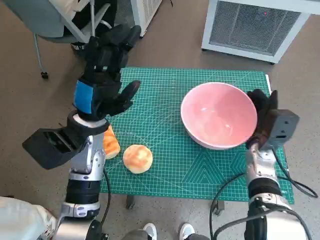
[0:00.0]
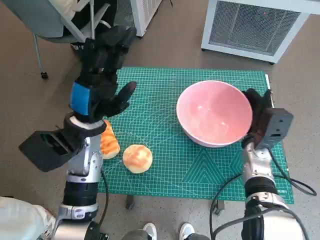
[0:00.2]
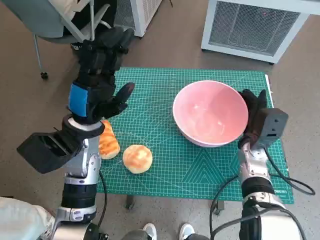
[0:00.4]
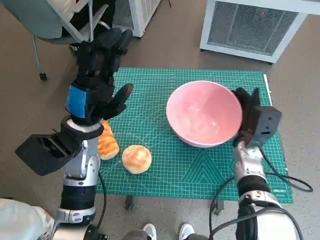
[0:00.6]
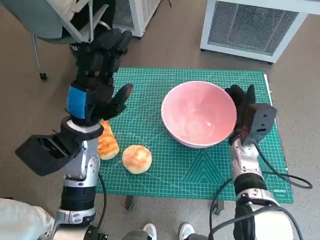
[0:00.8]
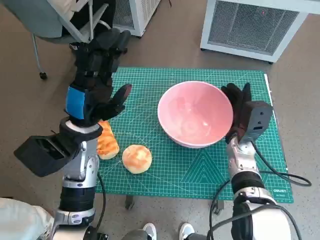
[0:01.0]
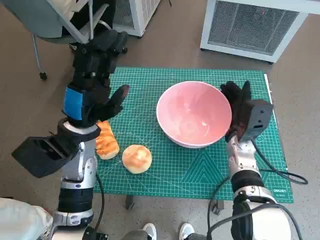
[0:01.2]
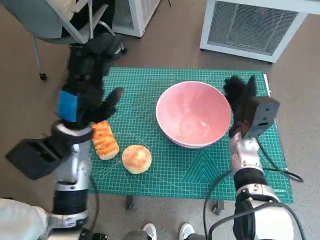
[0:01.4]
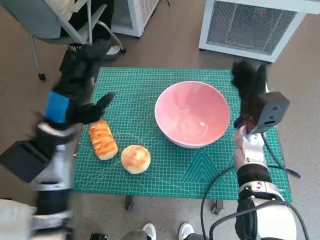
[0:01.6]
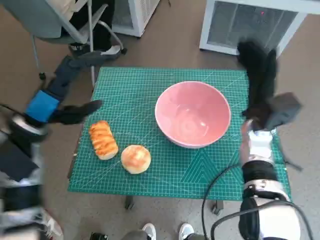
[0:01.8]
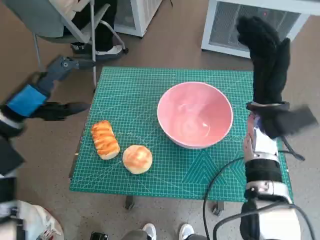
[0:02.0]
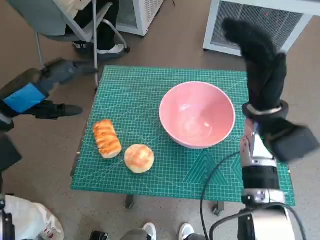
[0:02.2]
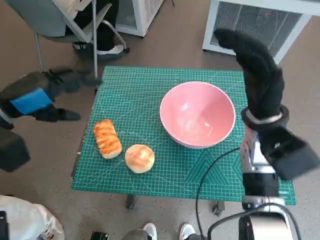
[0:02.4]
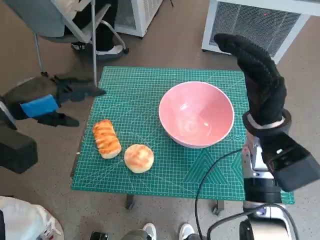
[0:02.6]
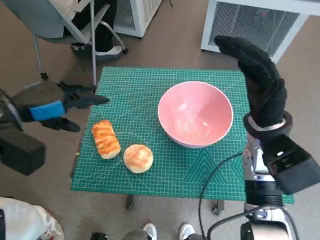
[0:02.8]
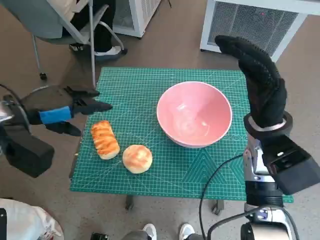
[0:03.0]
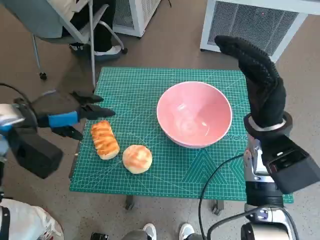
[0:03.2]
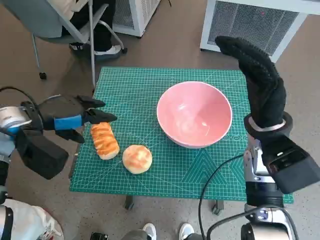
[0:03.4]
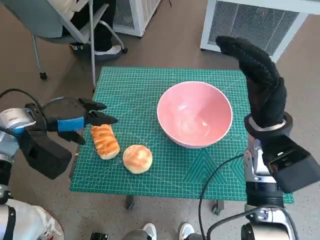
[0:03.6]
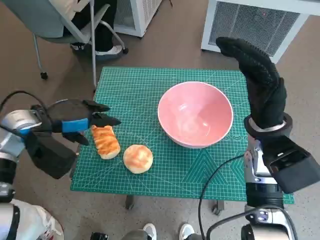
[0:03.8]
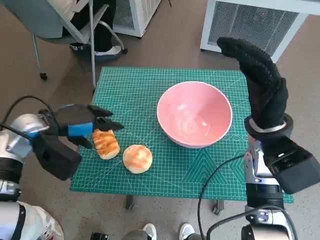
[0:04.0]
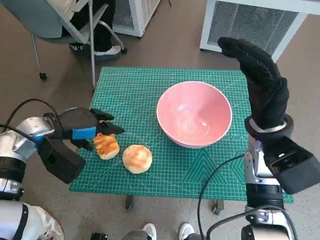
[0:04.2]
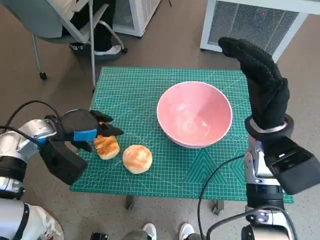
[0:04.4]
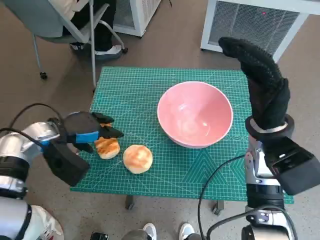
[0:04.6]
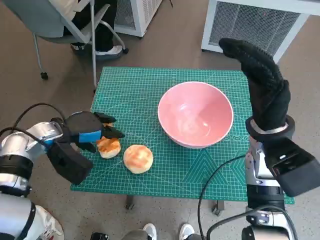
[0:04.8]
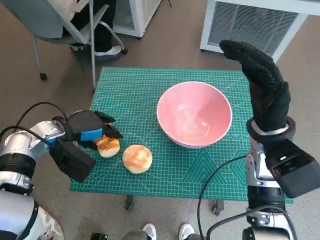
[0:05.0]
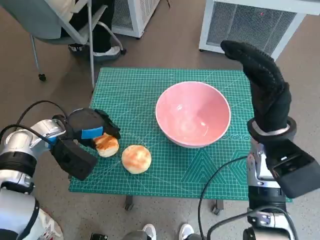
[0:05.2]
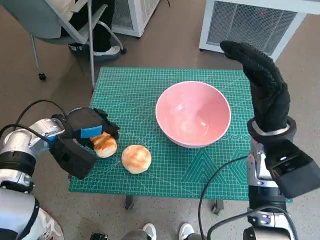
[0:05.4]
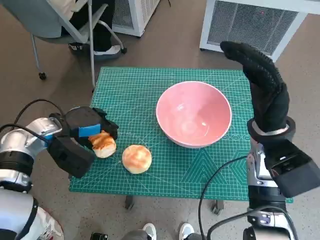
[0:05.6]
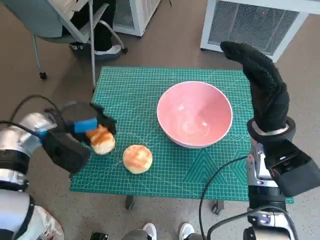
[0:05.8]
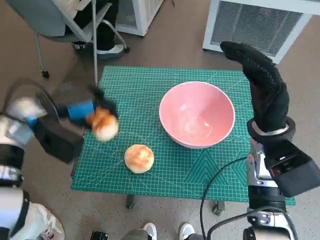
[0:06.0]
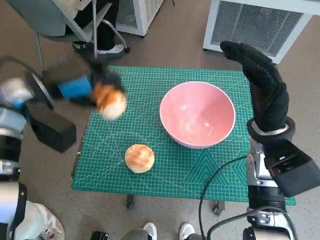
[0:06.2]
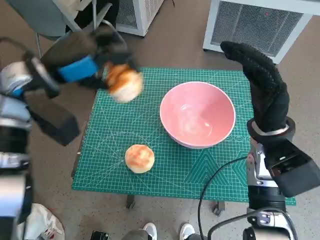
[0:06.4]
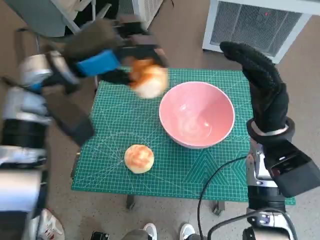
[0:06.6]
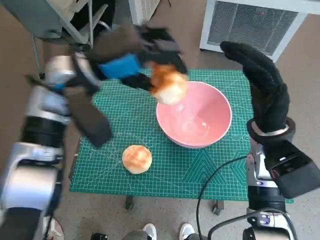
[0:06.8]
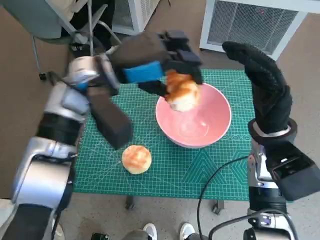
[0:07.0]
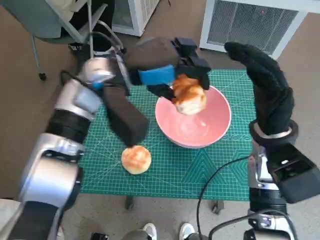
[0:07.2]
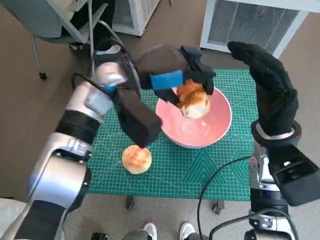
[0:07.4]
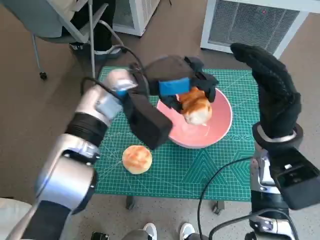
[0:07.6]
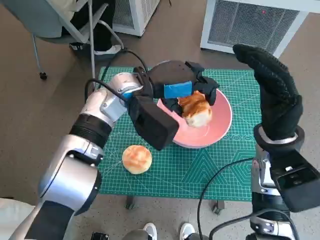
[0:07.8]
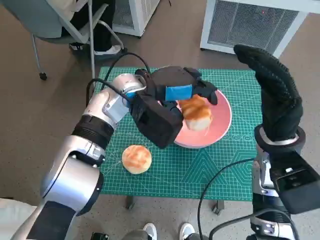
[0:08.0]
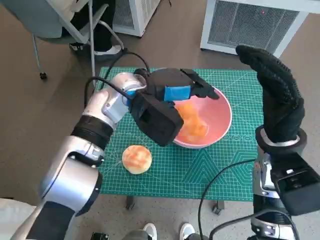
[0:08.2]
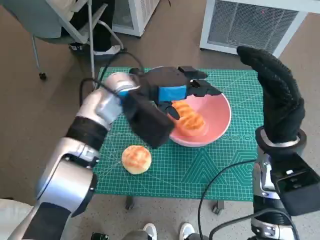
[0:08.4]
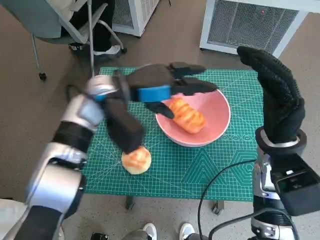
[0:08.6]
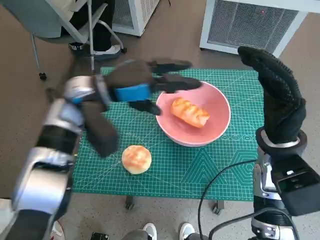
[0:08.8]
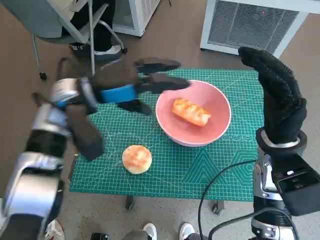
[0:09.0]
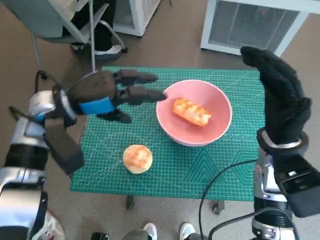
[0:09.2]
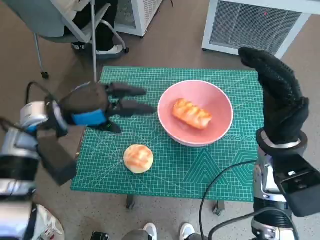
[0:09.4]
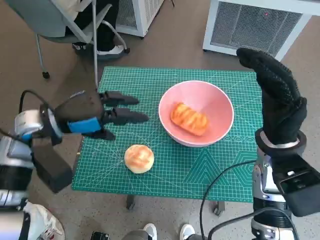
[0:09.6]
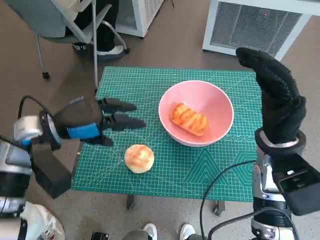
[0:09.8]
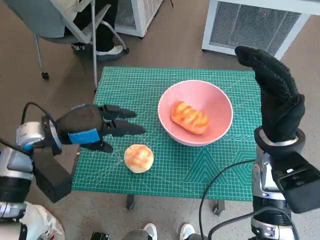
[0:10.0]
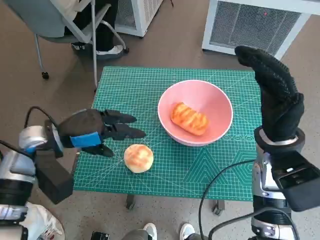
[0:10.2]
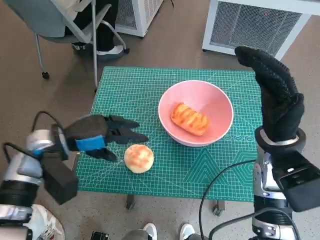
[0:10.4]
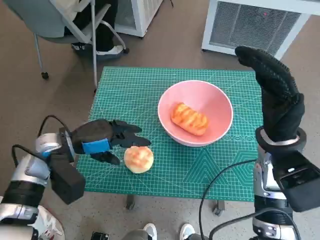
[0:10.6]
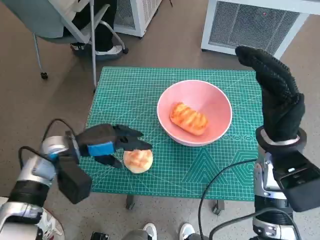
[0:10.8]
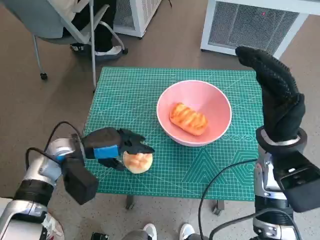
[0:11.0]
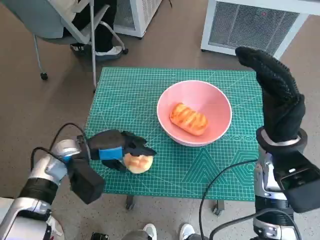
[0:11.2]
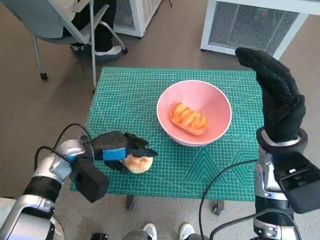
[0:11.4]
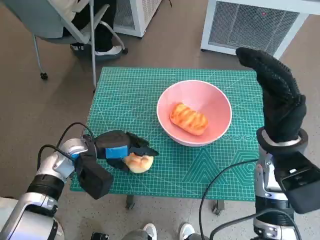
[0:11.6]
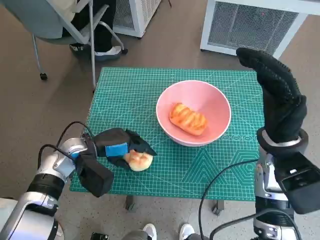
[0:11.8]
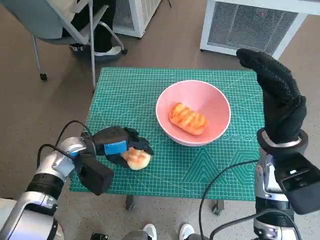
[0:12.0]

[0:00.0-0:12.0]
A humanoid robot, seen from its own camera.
Task of the whole recording: Push the bowl to the center of the table and put the bread into the bowl.
Step, 0:02.0 to 0:05.4: Grasp the long bread with left hand.
Step, 0:05.6 to 0:08.6: Place the long bread in pink bowl with left hand.
Step, 0:08.8 to 0:11.6: Grasp the round bread with left hand.
0:00.0 to 0:01.6: The right hand changes place by roughly 5 cm; the left hand ends up about 5 cm from where it was.
0:01.6 to 0:03.0: The right hand travels upward by about 10 cm. The left hand shifts roughly 10 cm to the left and upward.
0:03.0 to 0:04.4: The left hand travels downward by roughly 10 cm.
0:06.0 to 0:07.6: The left hand shifts about 20 cm to the right.
0:07.6 to 0:09.0: The left hand moves to the left, approximately 10 cm.
0:09.0 to 0:10.4: The left hand is displaced to the left, downward and backward by about 10 cm.
0:10.4 to 0:12.0: The left hand travels downward by about 5 cm.

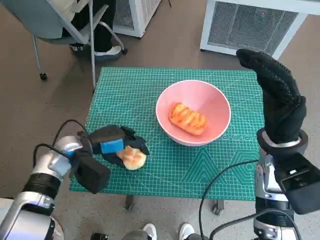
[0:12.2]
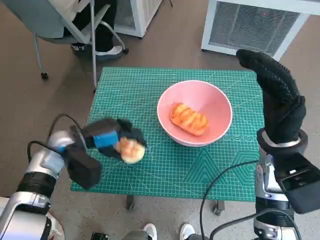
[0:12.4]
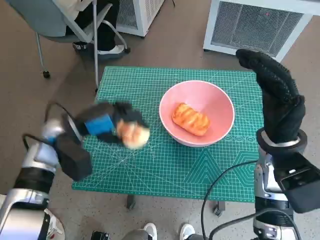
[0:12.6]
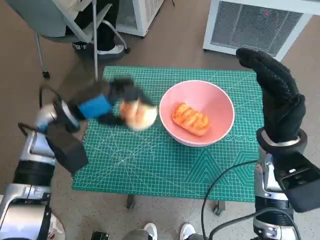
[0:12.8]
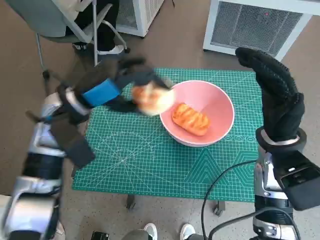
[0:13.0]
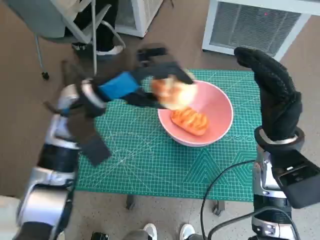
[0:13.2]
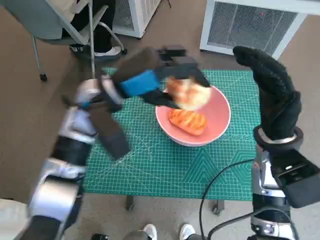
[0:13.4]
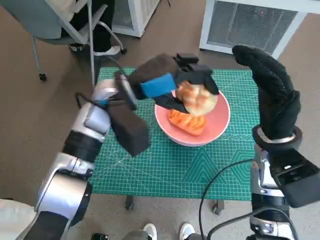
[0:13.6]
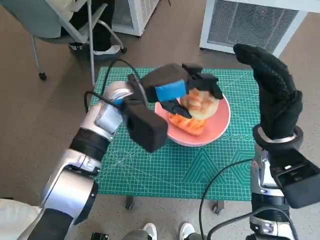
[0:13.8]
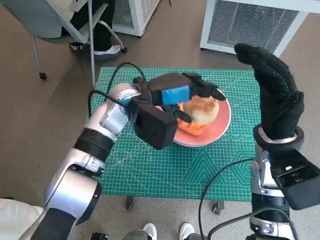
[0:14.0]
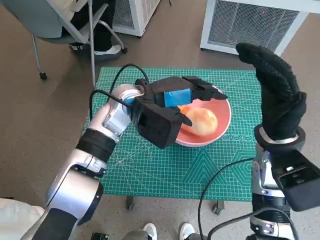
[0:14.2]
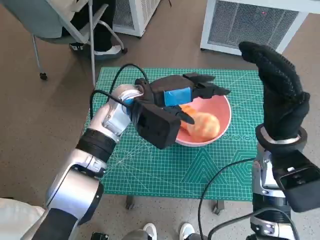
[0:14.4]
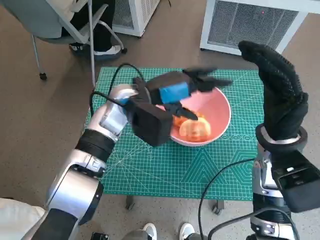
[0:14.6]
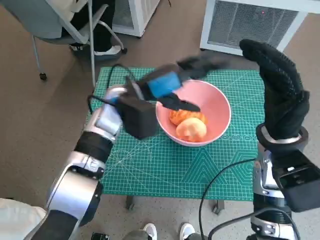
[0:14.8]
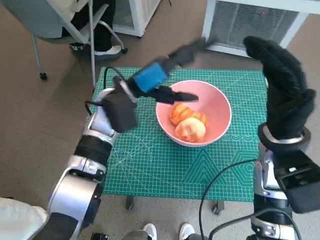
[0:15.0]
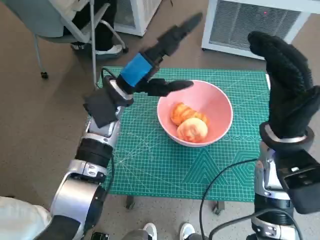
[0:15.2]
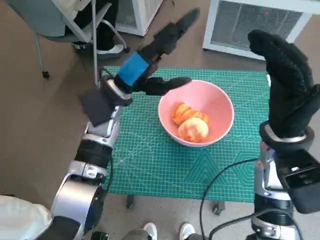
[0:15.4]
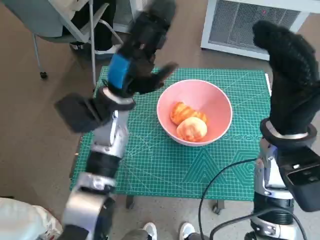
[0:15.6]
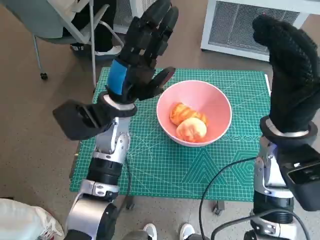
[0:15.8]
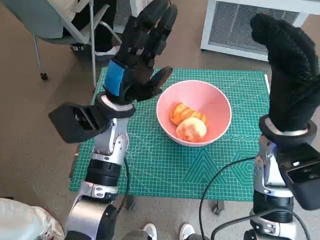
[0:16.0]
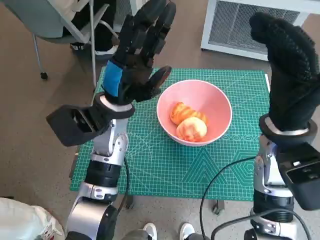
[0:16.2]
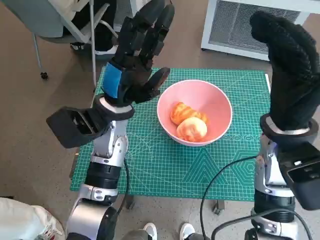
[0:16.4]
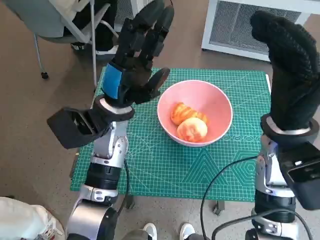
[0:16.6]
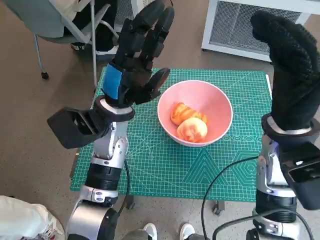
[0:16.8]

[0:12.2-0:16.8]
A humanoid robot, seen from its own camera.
Task of the whole recording: Push the bowl to the center of the table and put the bread into the bowl.
Step, 0:12.2 to 0:14.8: Place the round bread in pink bowl with left hand.
0:12.2 to 0:13.8: The left hand is displaced to the right, upward and forward by approximately 20 cm.

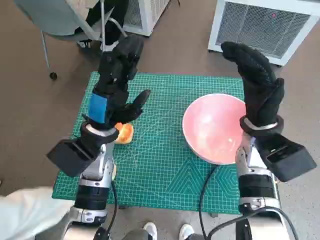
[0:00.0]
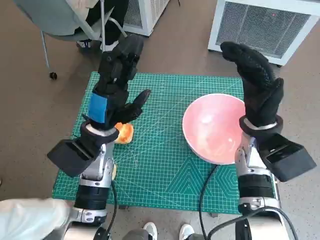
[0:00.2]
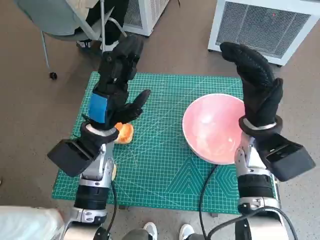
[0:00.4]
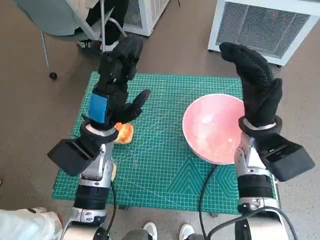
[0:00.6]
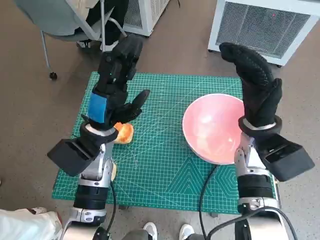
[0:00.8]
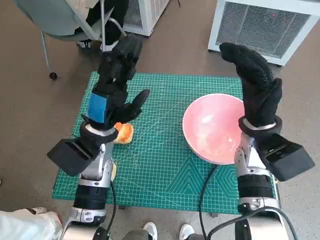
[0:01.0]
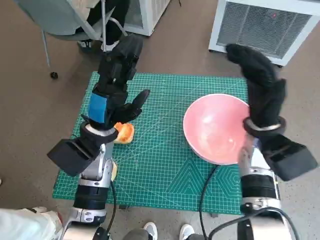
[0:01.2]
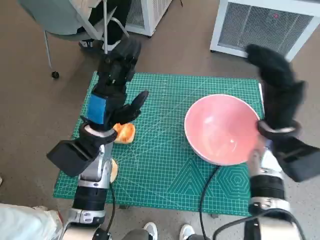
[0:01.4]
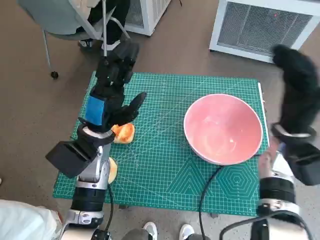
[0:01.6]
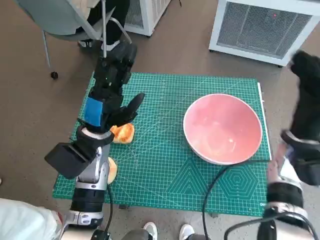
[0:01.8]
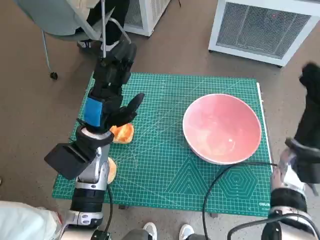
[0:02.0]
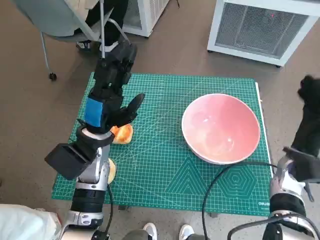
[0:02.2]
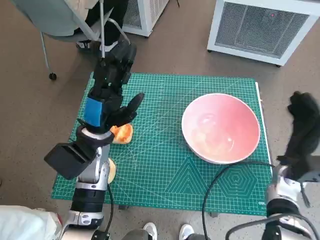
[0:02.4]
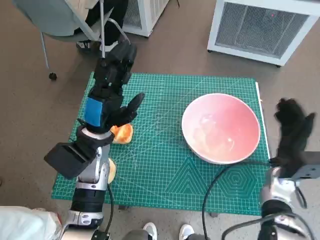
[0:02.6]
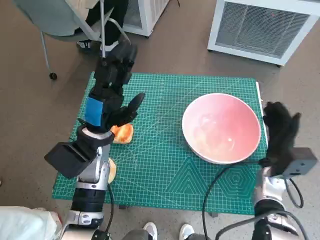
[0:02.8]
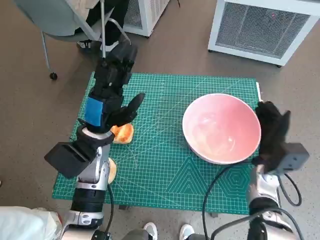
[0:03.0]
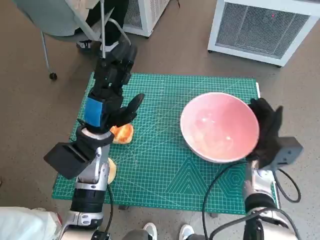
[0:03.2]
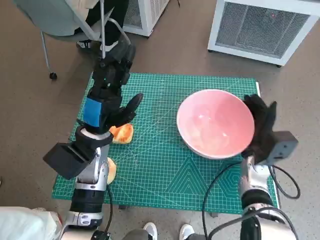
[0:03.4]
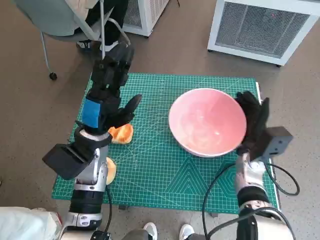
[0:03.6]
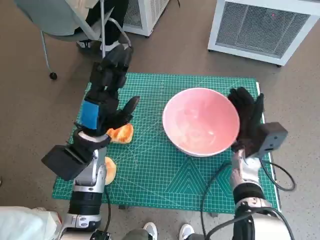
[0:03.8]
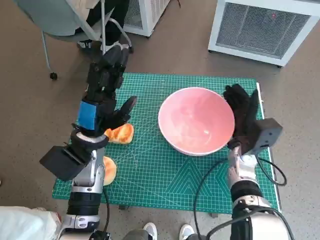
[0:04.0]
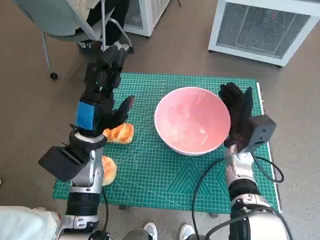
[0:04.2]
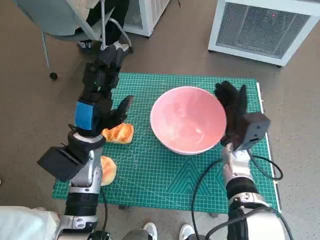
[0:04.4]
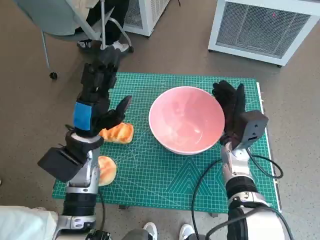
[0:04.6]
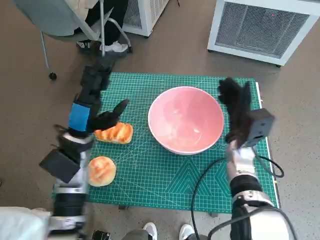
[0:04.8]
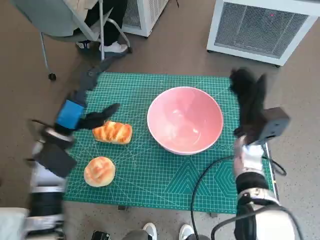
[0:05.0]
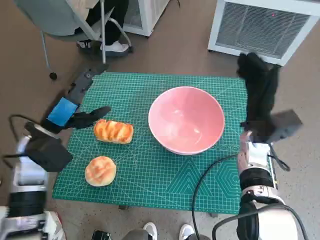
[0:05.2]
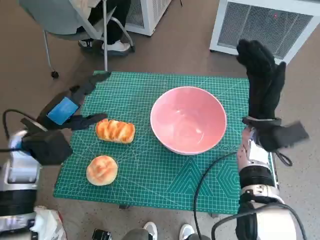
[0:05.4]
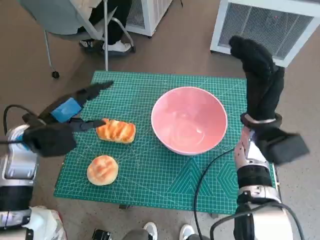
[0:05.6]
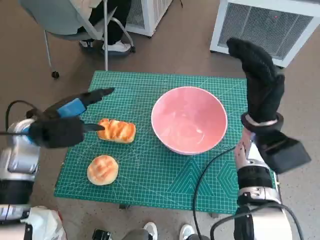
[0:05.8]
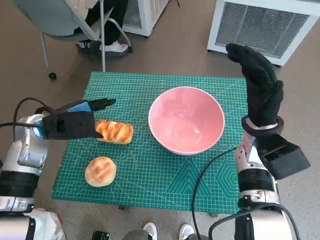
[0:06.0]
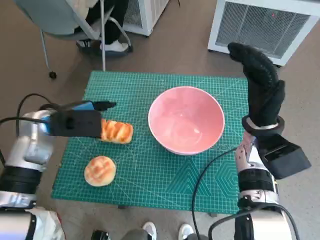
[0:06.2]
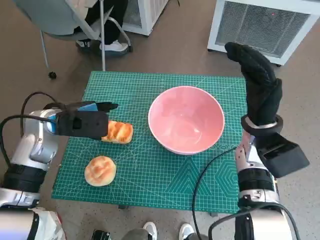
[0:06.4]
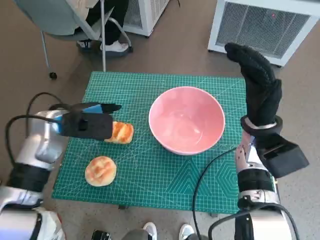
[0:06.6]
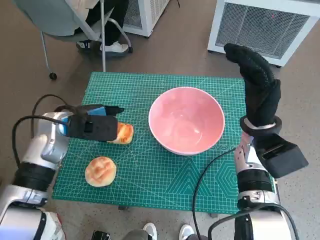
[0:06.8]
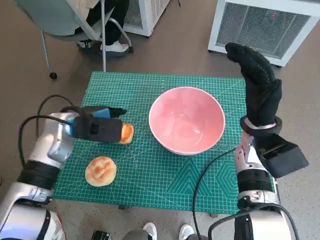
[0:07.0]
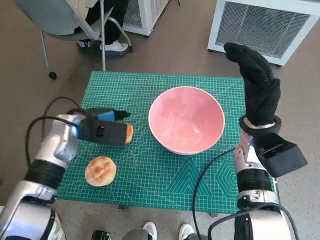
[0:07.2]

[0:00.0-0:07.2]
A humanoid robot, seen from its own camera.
Task of the whole recording: Push the bowl to the center of the table and put the bread into the bowl.
Step, 0:00.0 to 0:05.0: Move the pink bowl to the center of table with right hand.
0:01.4 to 0:02.8: The right hand is displaced downward by about 10 cm.
0:02.8 to 0:04.4: The right hand moves to the left, approximately 10 cm.
0:04.4 to 0:05.8: The left hand travels to the left by roughly 10 cm; the right hand travels upward by roughly 10 cm.
0:05.8 to 0:07.2: The left hand shifts about 5 cm to the right.
